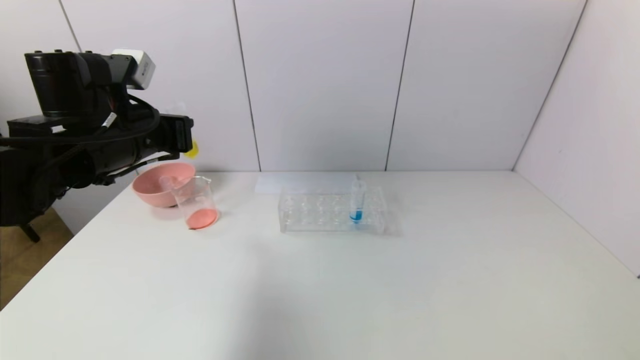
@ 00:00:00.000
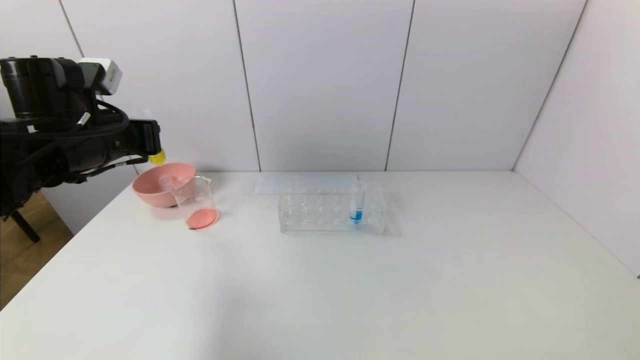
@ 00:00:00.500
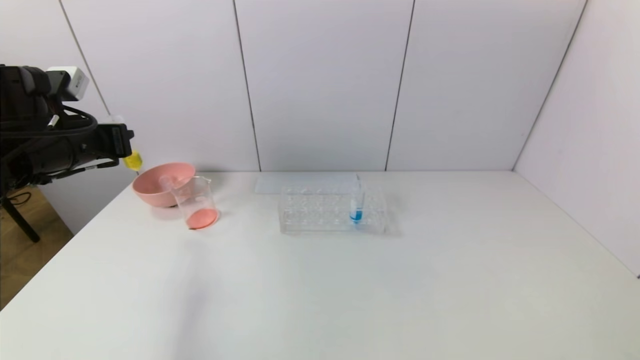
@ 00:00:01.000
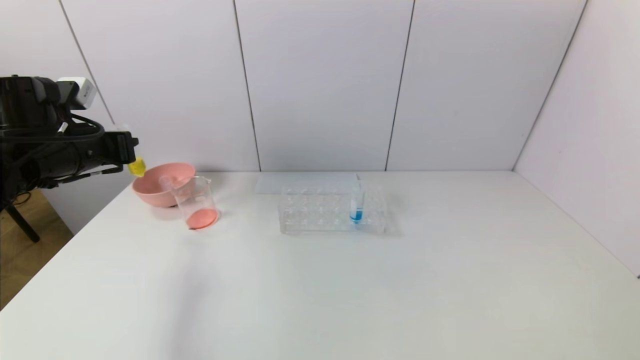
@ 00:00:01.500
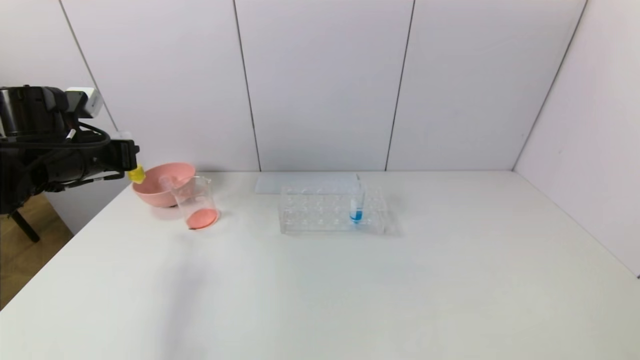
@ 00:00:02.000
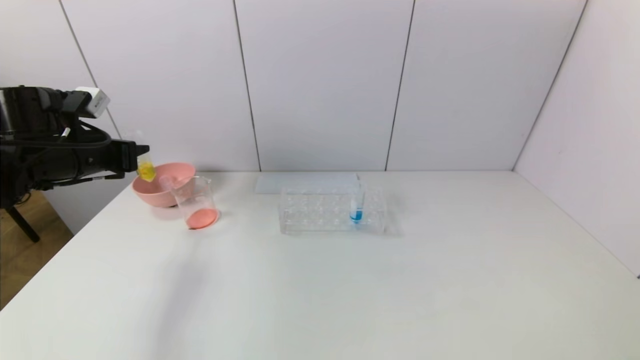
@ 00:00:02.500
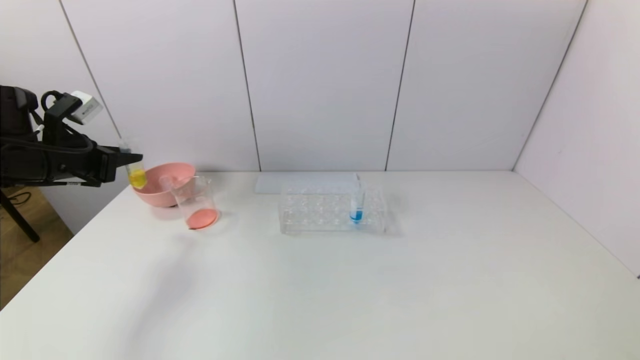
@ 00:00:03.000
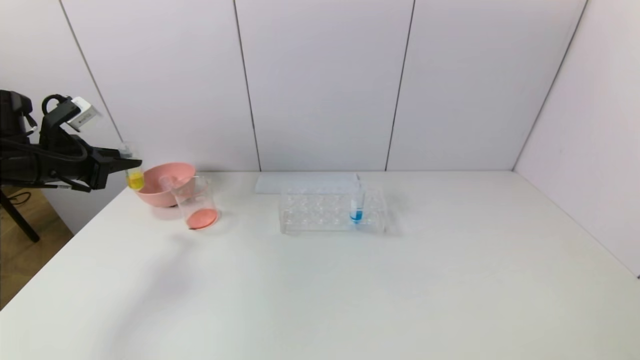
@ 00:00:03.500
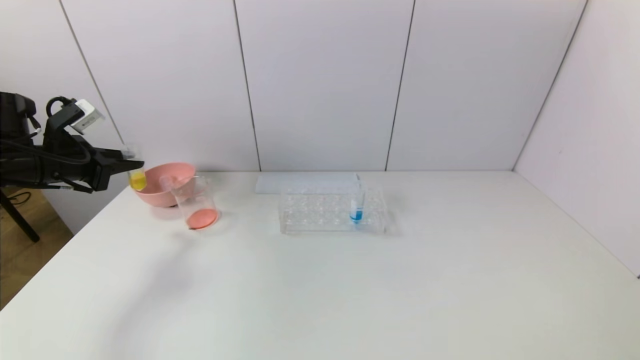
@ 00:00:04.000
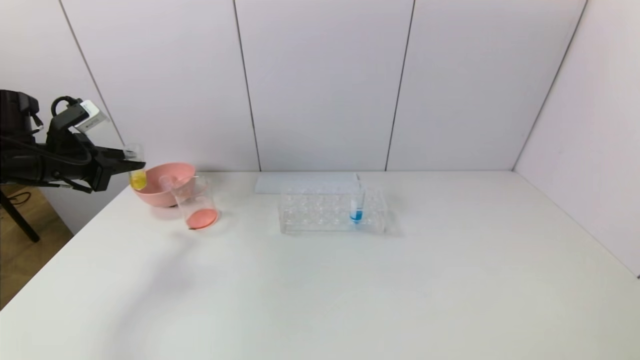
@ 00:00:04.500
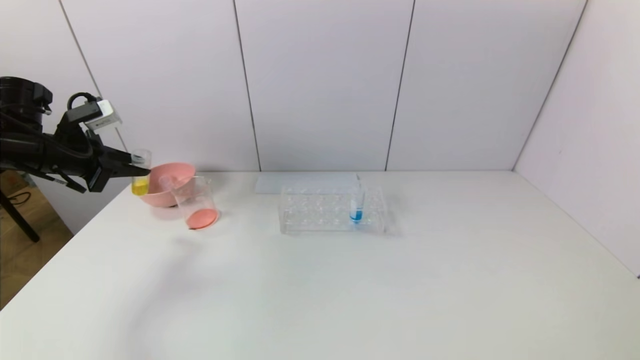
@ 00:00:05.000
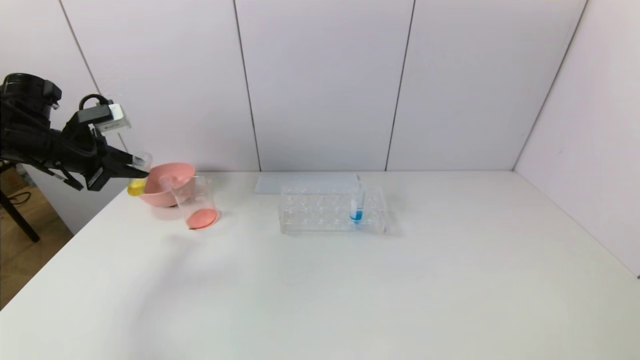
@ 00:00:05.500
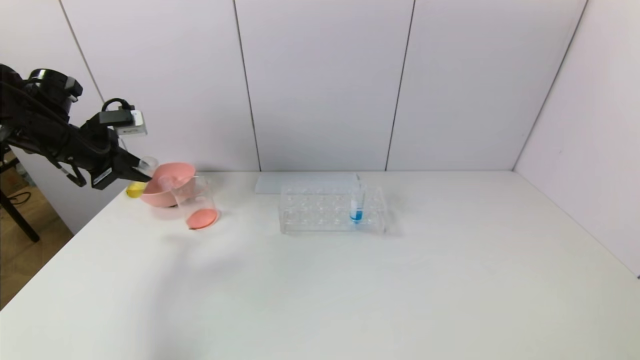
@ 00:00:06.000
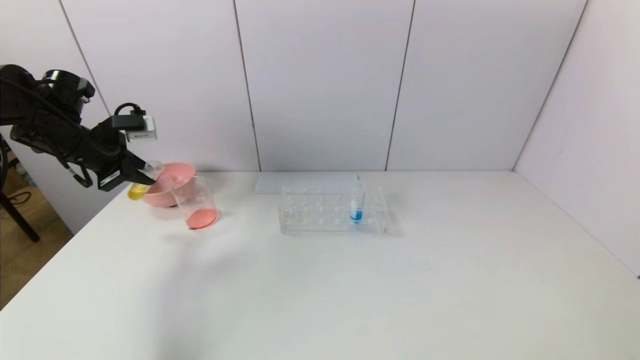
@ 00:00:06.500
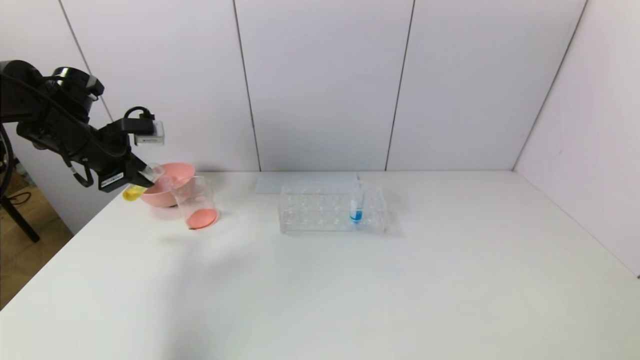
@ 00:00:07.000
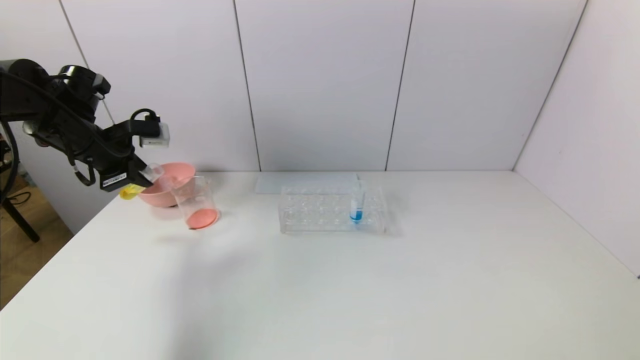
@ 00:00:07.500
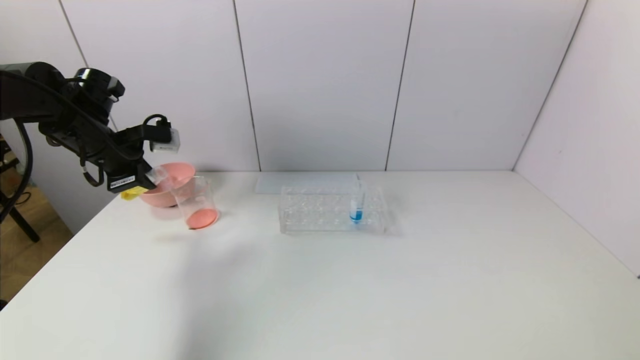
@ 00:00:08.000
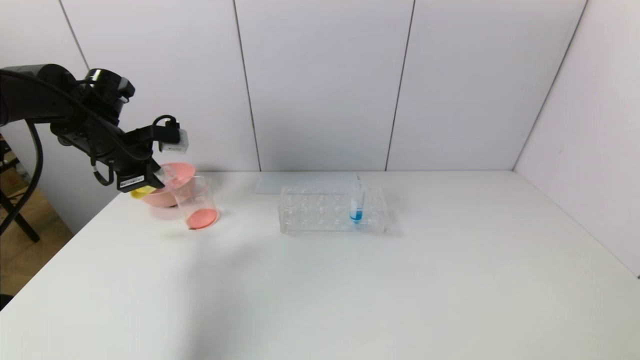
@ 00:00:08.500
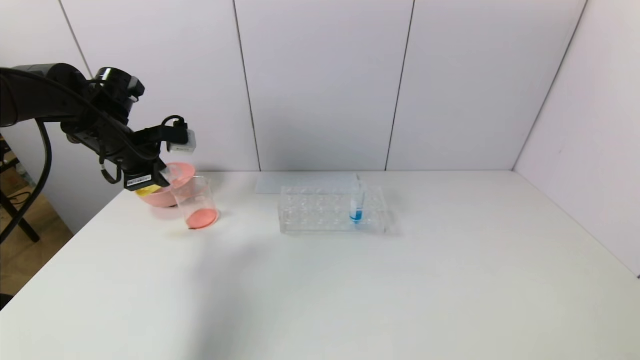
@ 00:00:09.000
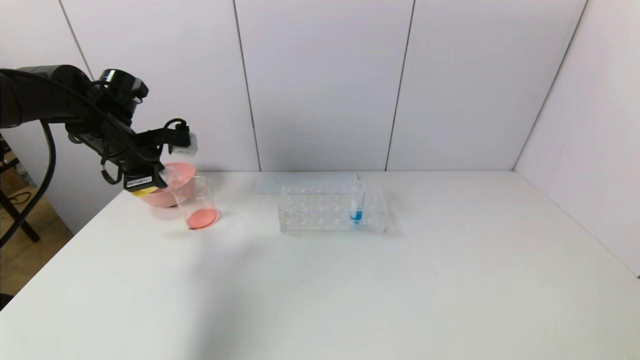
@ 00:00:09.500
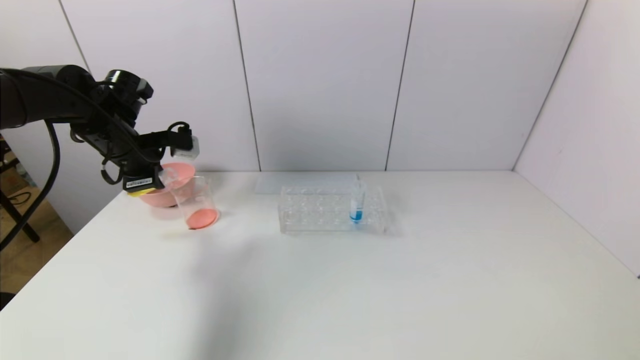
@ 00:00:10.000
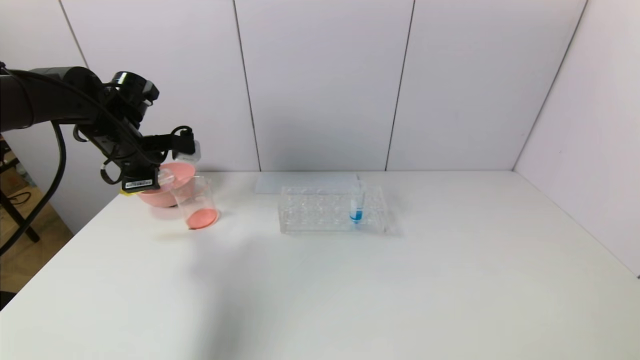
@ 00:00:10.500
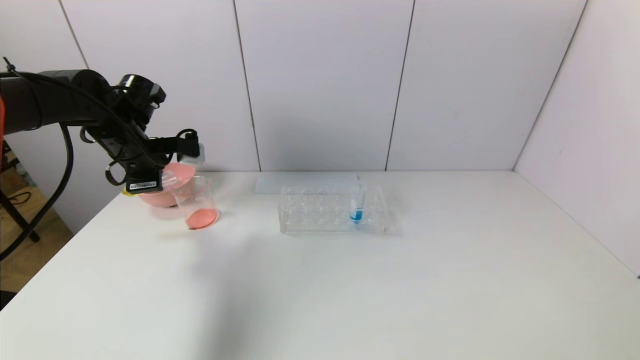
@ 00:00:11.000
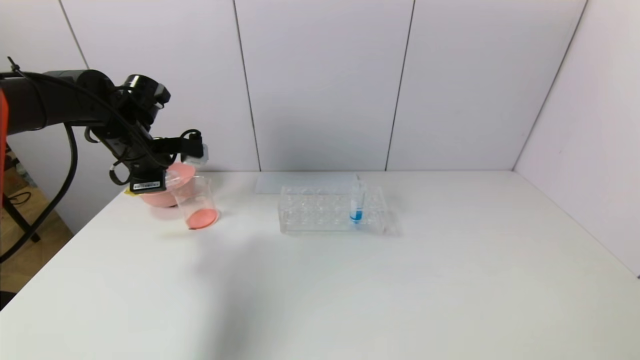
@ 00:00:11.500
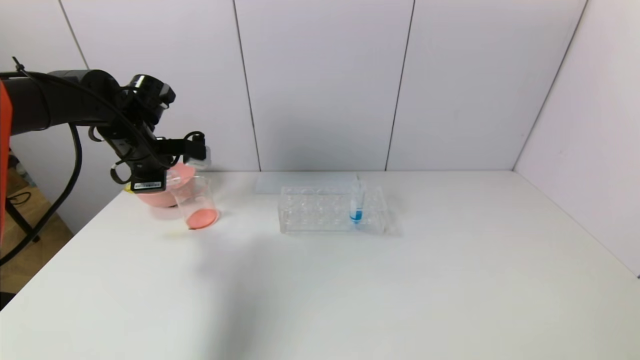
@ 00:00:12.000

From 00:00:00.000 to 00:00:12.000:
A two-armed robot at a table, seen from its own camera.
Task of the whole recording: pick up the test tube with yellow pigment and the test tube with red pigment by grippers and pour them into the beaker.
From 00:00:00.000 to 00:00:02.000: The left gripper moves to the left, about 10 cm.
From 00:00:02.000 to 00:00:04.000: The left gripper moves to the left, about 5 cm.
From 00:00:04.000 to 00:00:06.000: The left gripper changes place by about 5 cm.
From 00:00:06.000 to 00:00:08.000: There are only small adjustments of the grippers.
From 00:00:08.000 to 00:00:12.000: The grippers stay close to where they were, moving slightly.

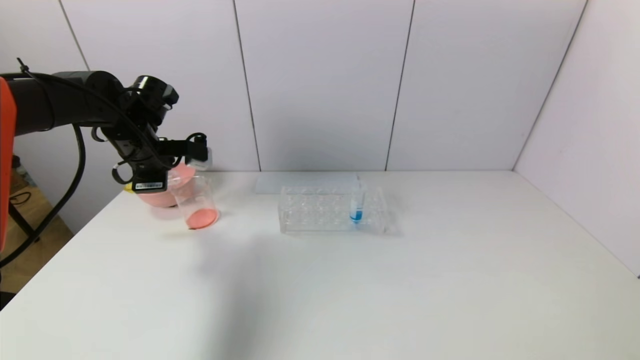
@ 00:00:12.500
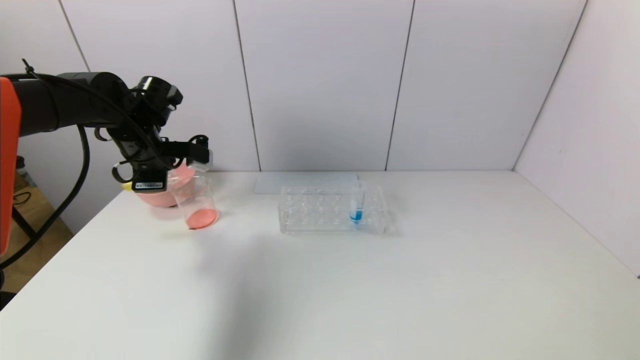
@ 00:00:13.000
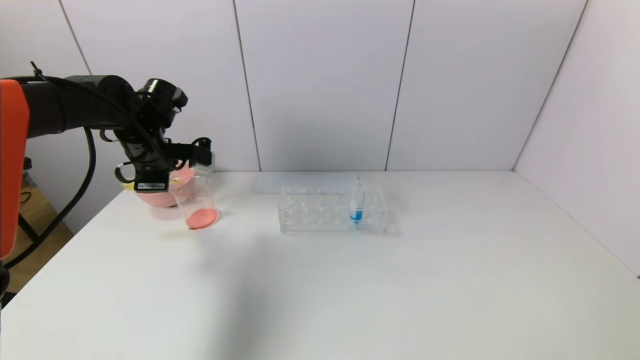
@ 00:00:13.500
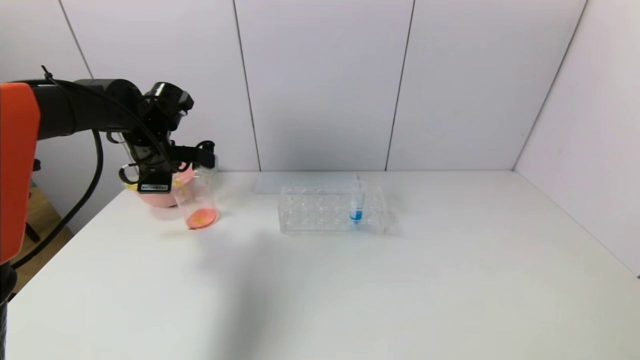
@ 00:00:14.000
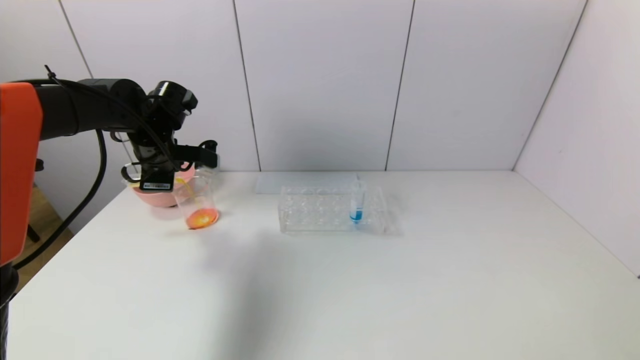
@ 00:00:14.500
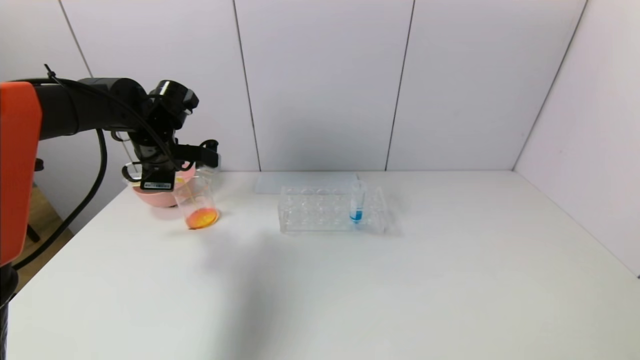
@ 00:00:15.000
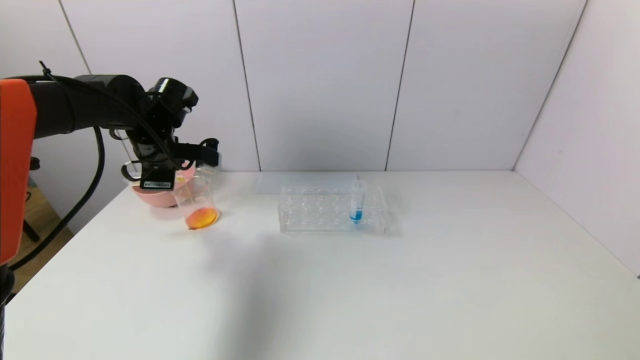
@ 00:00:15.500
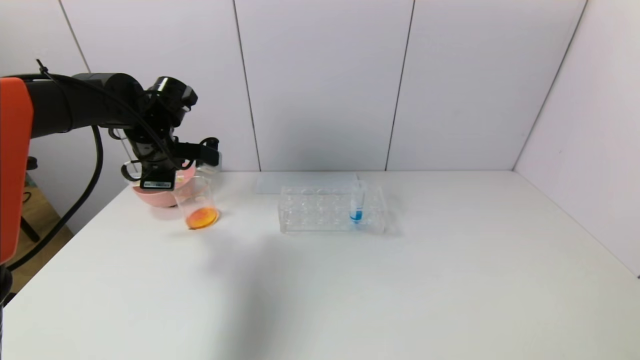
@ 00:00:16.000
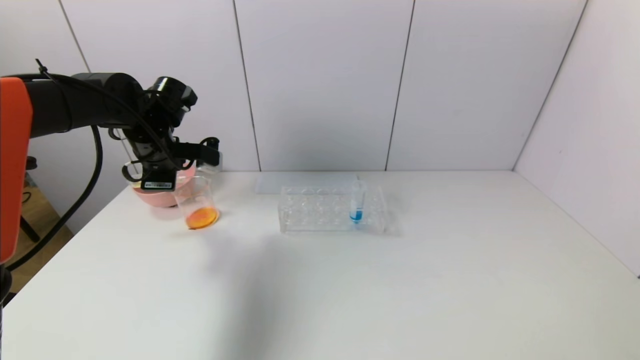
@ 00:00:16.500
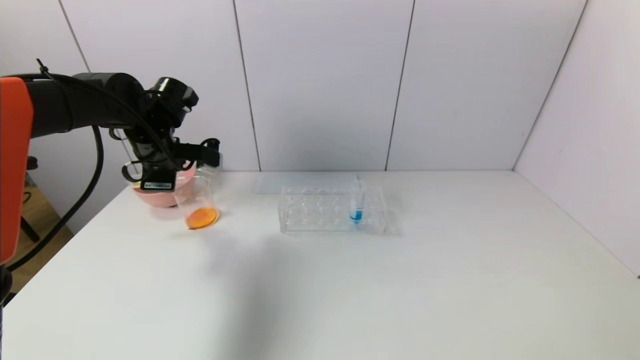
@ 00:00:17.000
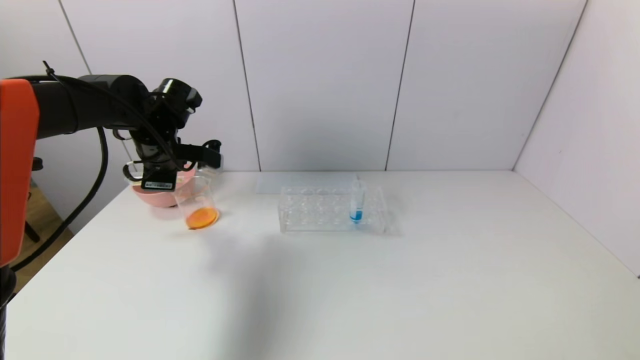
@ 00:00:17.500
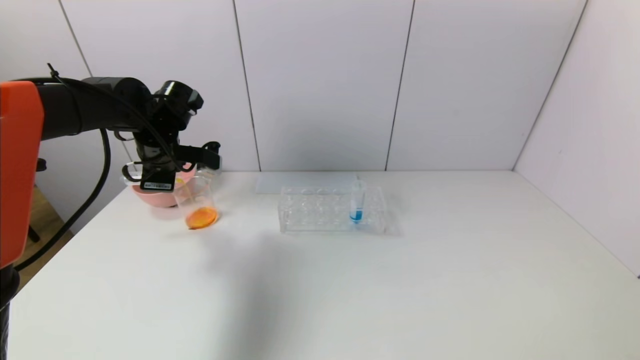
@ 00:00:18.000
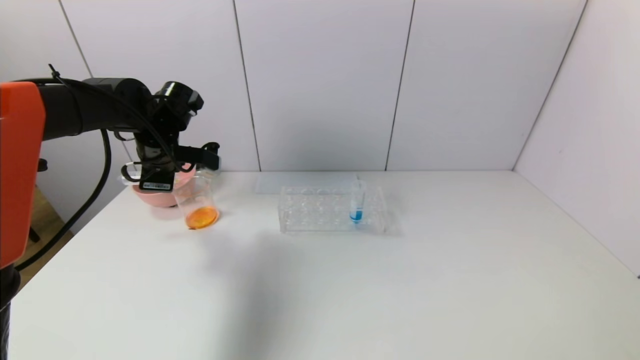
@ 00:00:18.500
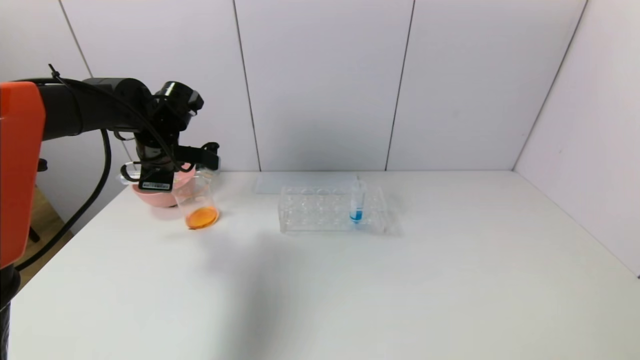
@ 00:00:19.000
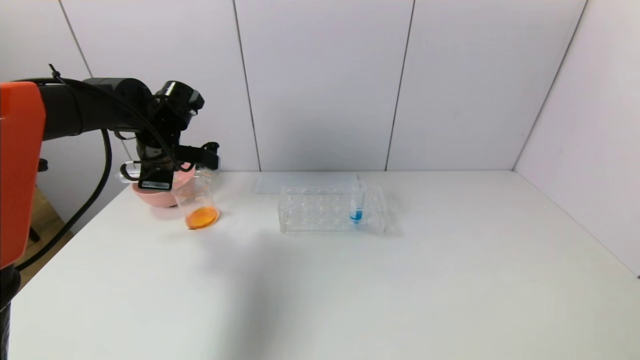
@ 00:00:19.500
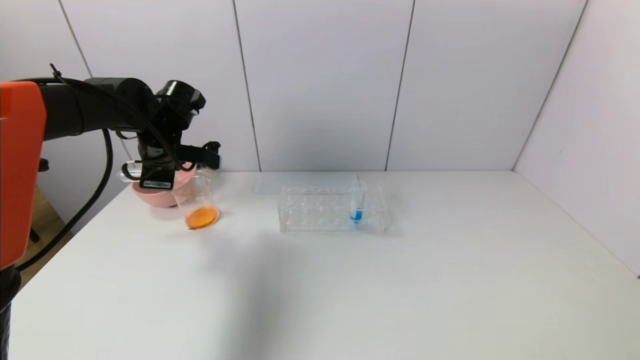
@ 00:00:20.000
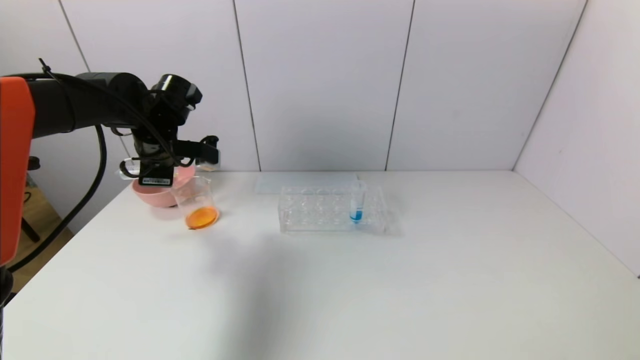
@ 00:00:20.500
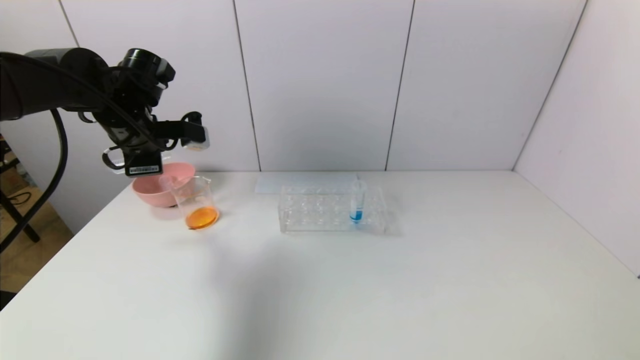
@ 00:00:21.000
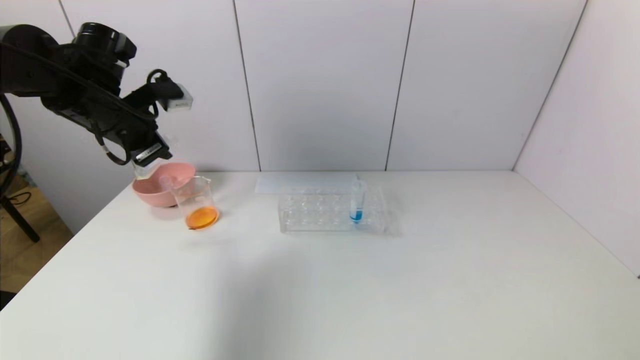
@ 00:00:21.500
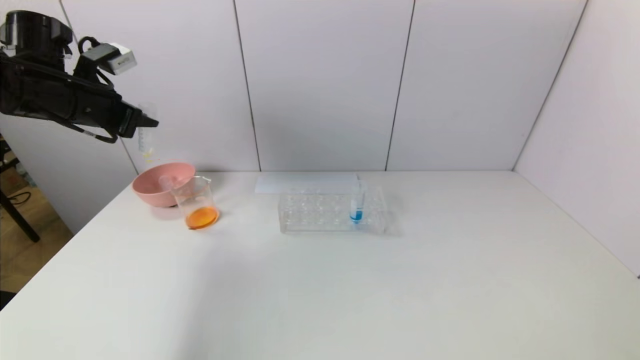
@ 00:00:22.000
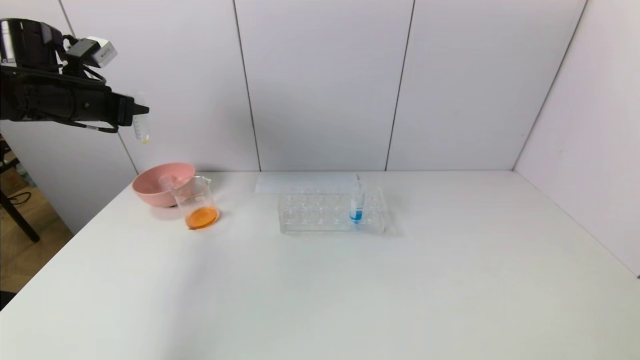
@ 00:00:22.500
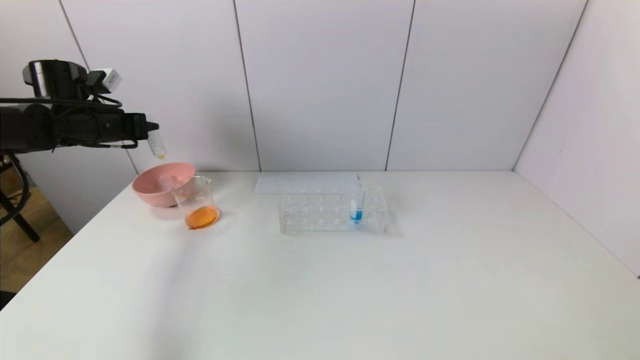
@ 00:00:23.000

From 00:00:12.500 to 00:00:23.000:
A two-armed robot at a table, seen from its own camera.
Task of the whole recording: pick up the test tube with yellow pigment and the test tube with red pigment by grippers and pour them into the beaker.
Step, from 00:00:12.500 to 00:00:19.500: Pour the yellow reagent into the graduated cylinder with the left gripper.
From 00:00:12.500 to 00:00:14.500: There are only small adjustments of the grippers.
From 00:00:14.500 to 00:00:16.500: Neither gripper changes place.
From 00:00:16.500 to 00:00:19.000: The grippers move only a little.
From 00:00:19.000 to 00:00:21.000: The left gripper changes place by roughly 5 cm.
From 00:00:21.000 to 00:00:23.000: The left gripper moves to the left, about 10 cm.
